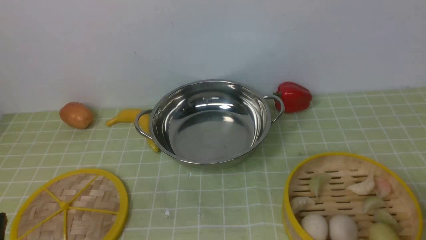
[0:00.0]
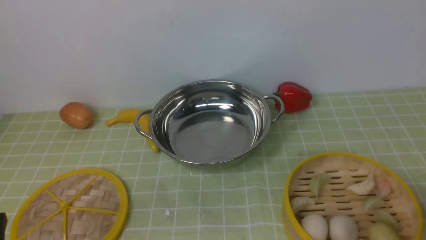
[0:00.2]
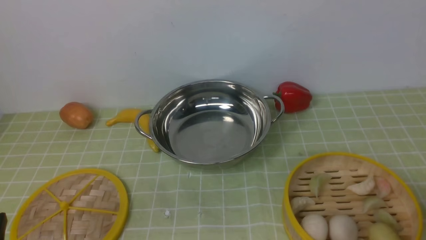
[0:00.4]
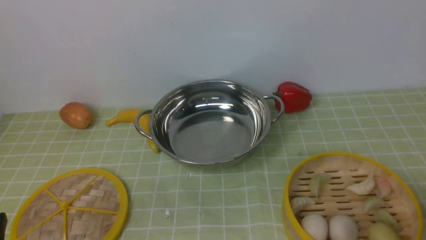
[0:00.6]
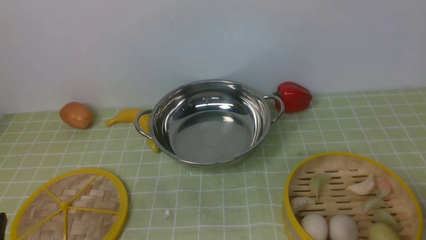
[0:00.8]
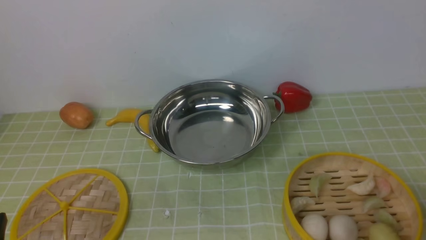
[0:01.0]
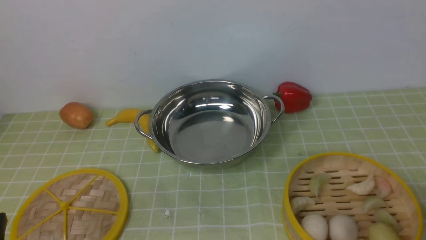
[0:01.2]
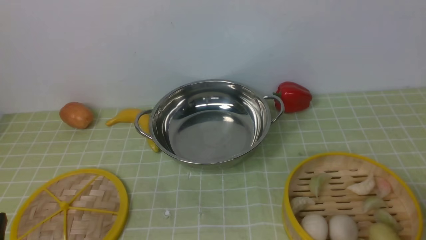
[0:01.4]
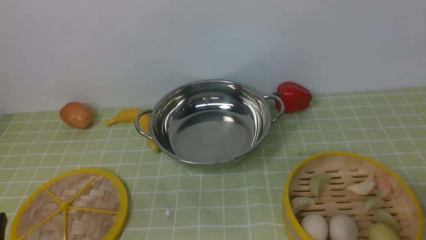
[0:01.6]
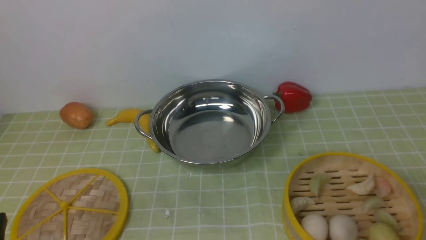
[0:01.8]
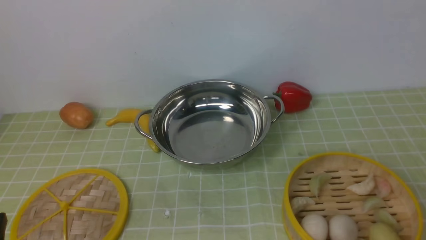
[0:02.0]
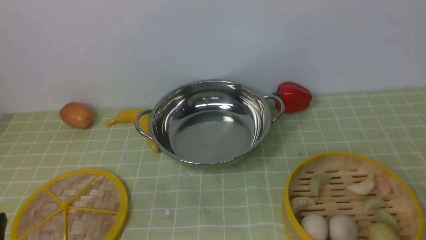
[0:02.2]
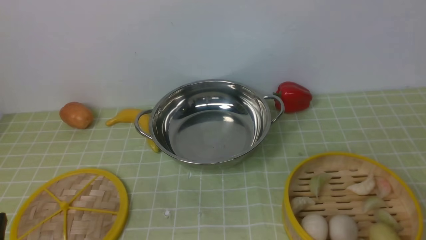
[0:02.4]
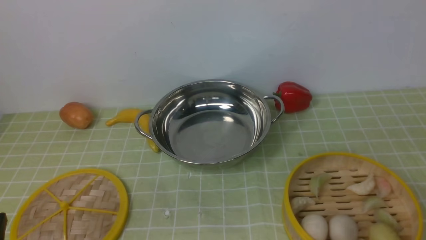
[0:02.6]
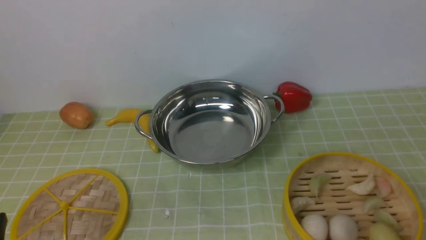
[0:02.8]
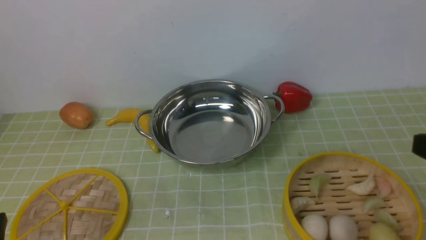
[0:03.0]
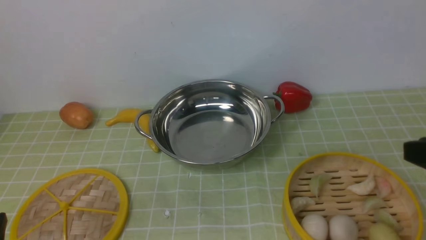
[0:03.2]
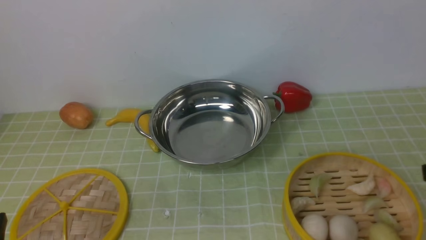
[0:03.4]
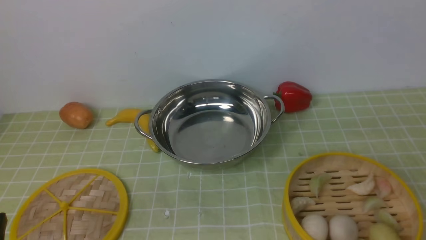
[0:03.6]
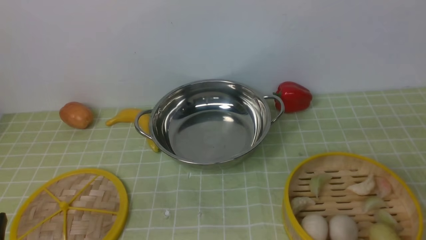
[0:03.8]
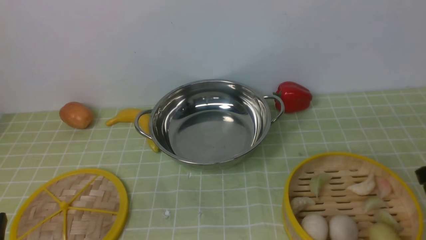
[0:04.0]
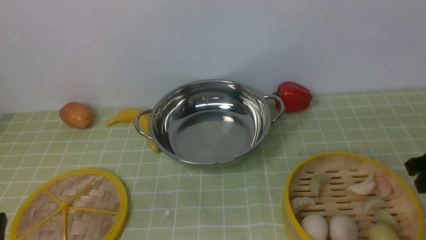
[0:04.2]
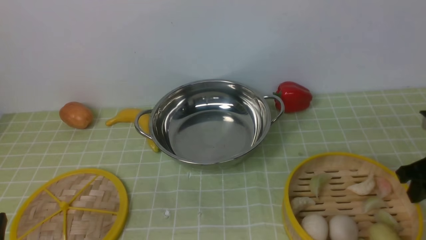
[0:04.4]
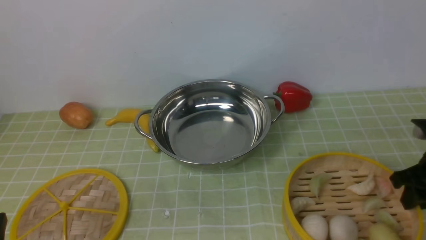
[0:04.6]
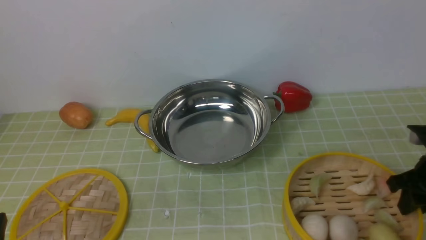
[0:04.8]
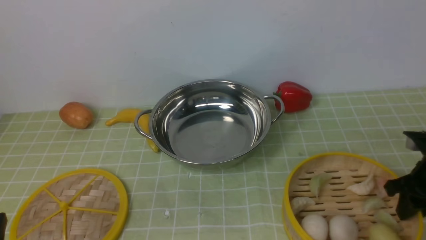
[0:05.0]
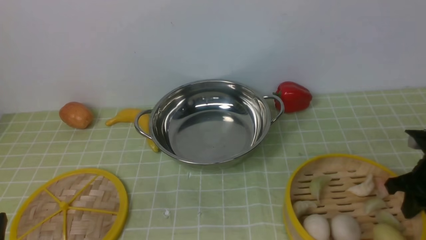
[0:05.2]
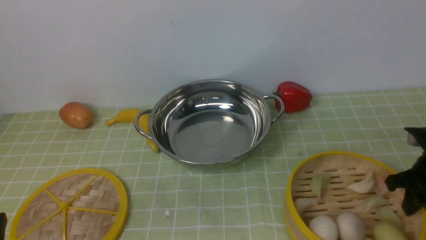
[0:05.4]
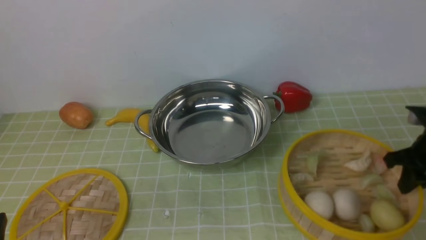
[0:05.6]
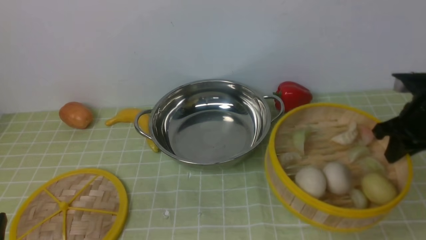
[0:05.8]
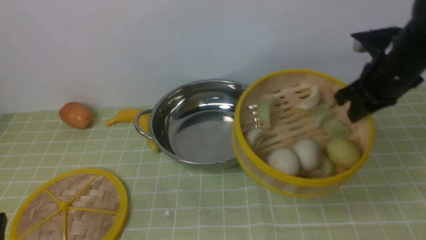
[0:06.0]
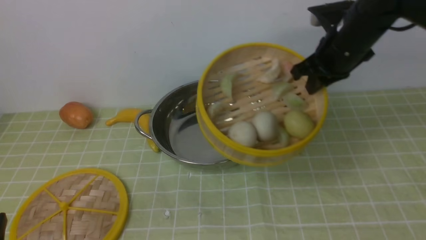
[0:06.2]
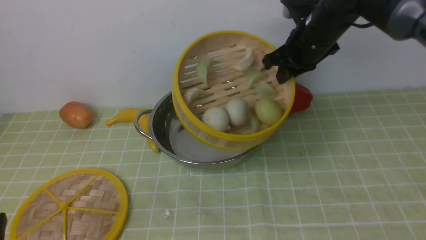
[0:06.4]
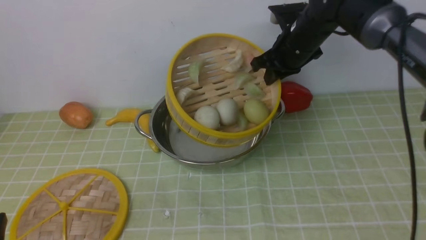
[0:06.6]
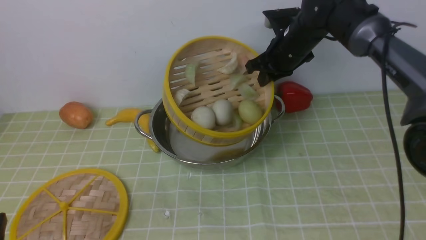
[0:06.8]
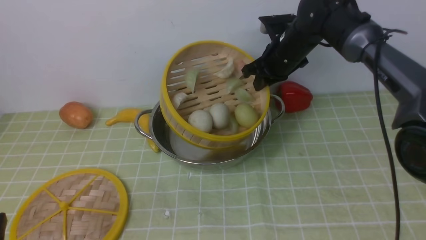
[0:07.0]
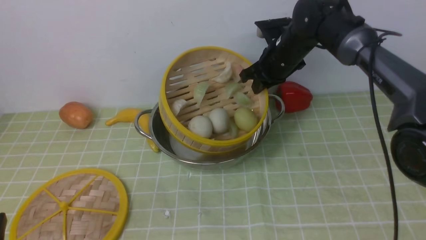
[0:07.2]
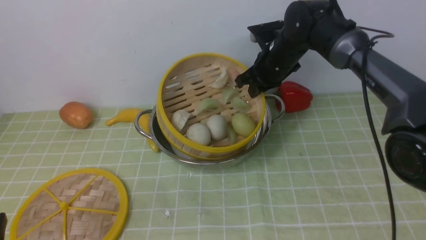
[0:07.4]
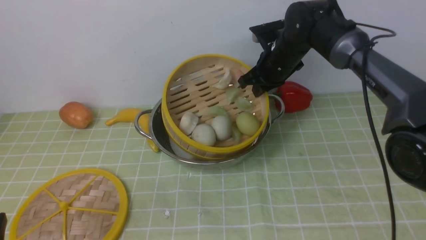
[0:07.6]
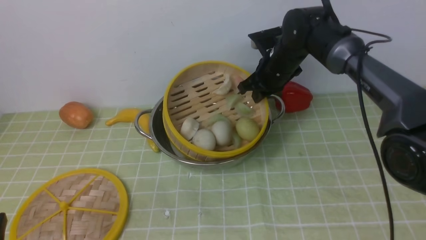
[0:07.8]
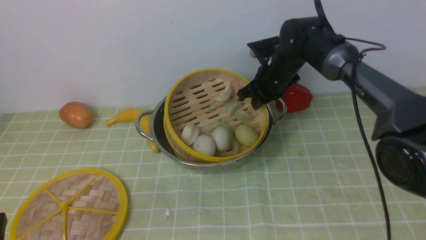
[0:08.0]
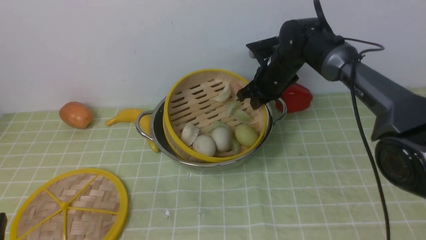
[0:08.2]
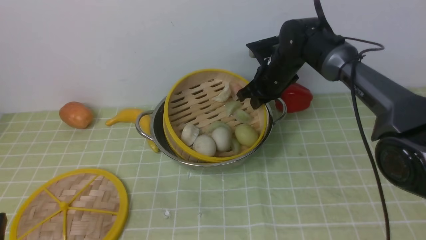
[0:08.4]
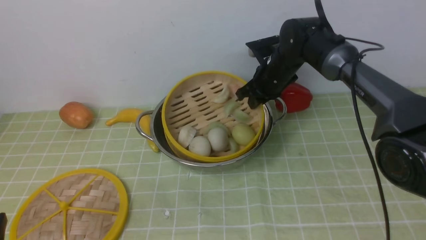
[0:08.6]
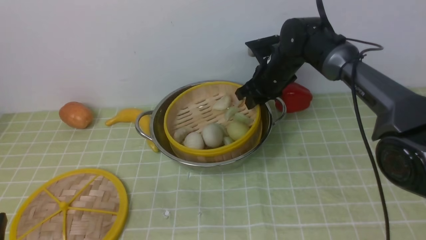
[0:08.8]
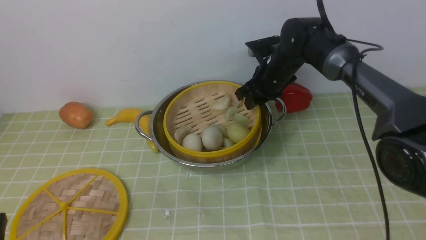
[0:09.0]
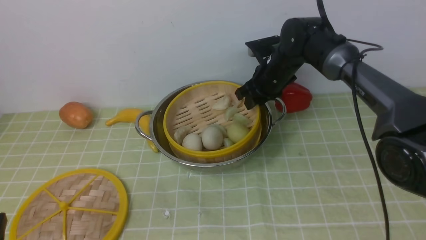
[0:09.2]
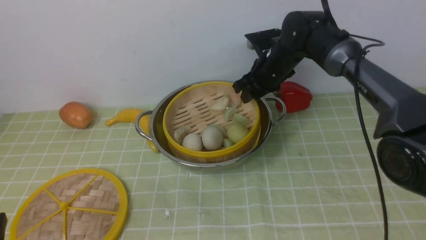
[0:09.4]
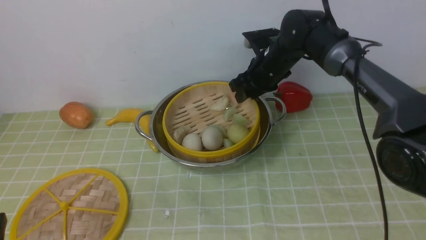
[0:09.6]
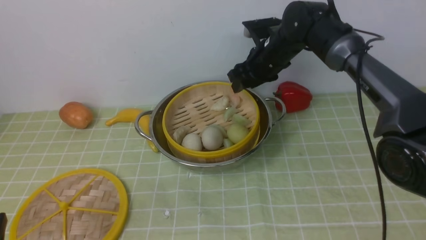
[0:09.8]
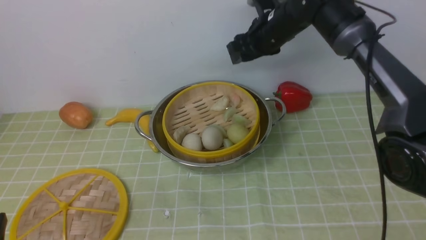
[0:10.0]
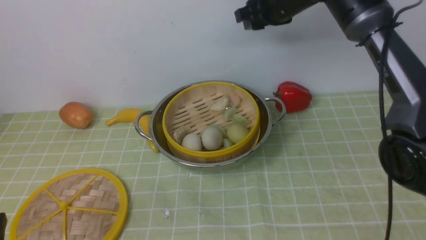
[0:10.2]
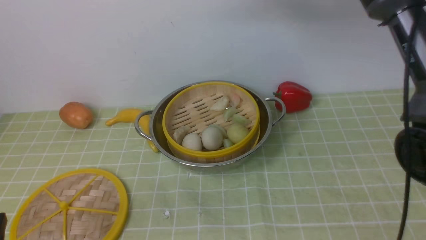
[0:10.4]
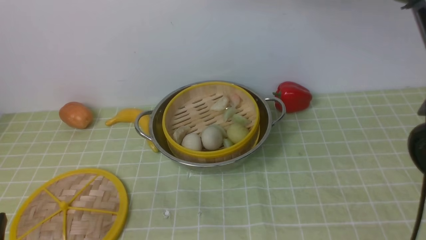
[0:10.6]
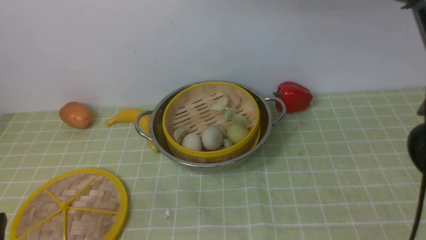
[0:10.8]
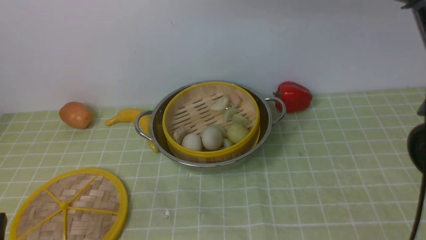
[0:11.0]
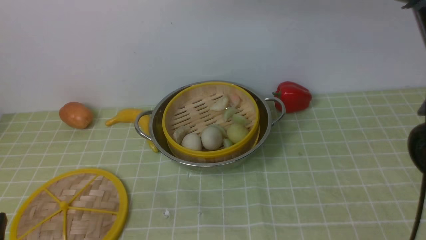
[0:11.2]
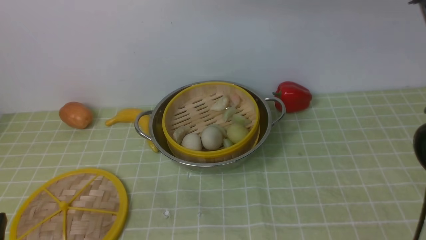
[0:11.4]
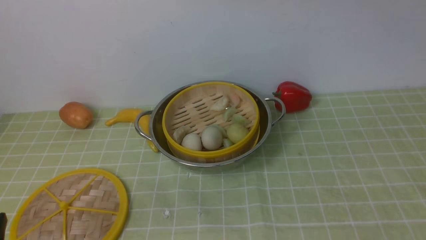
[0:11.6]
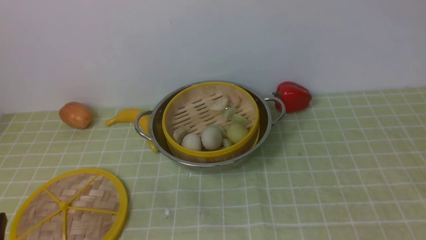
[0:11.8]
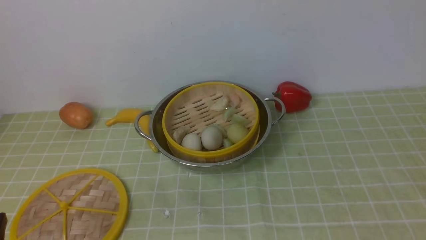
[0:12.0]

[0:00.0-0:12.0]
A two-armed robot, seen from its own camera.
Task of the whole recording: place the steamer in the pot on the green tablecloth, and put the lid on the steamer.
Step, 0:00.0 to 0:10.2: use the right arm to put the steamer into the iron steamer pot in the middle.
0:03.0 to 0:04.4: The right gripper travels forward and downward by approximately 20 cm.
0:04.4 to 0:06.0: The right gripper shifts roughly 15 cm forward, to the left and upward, and closes up.
0:06.0 to 0:07.6: The right gripper travels to the left, forward and downward by about 20 cm.
0:07.6 to 0:09.0: The right gripper opens up.
0:09.0 to 0:10.4: The right gripper goes about 20 cm upward, and closes its fingers.
0:10.4 to 0:12.0: The right gripper moves upward and backward, some 25 cm.

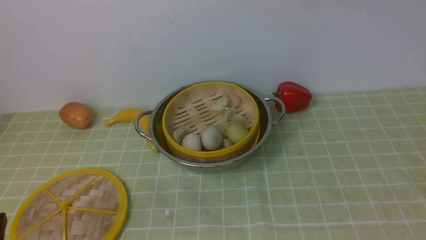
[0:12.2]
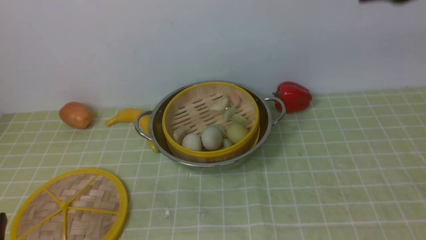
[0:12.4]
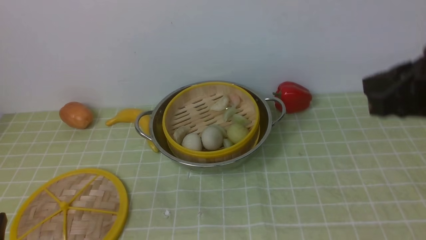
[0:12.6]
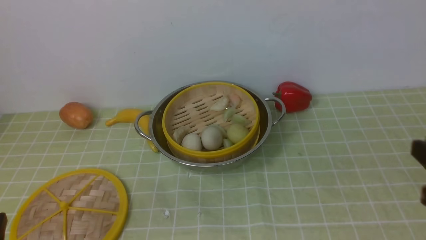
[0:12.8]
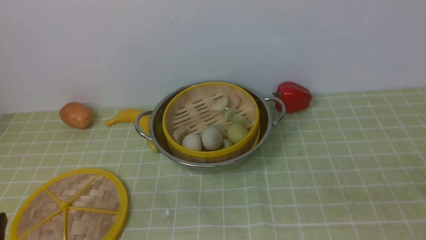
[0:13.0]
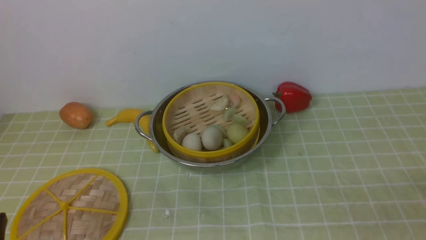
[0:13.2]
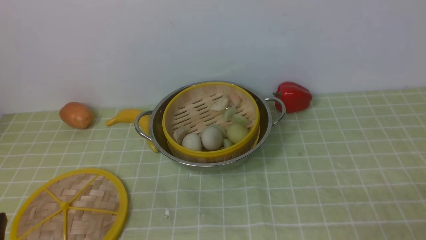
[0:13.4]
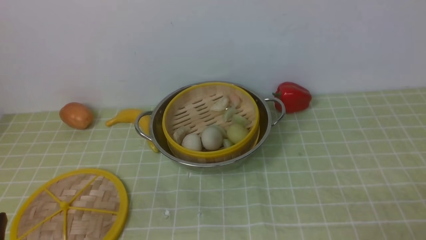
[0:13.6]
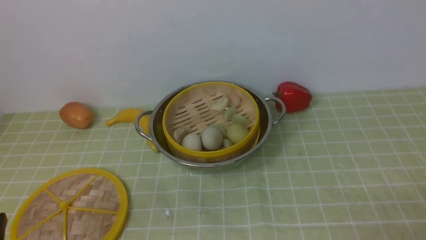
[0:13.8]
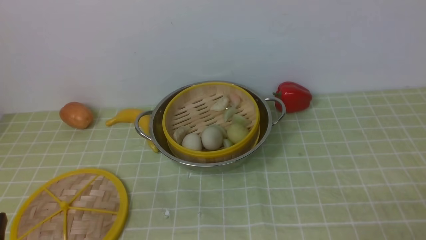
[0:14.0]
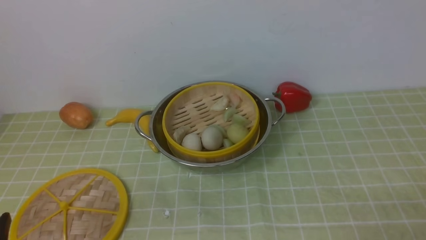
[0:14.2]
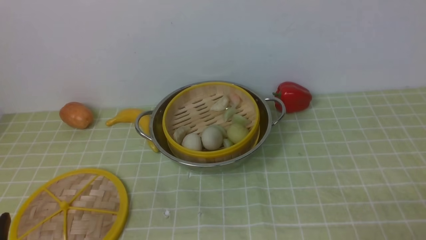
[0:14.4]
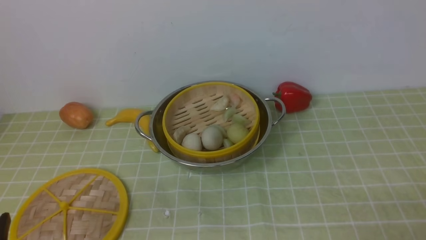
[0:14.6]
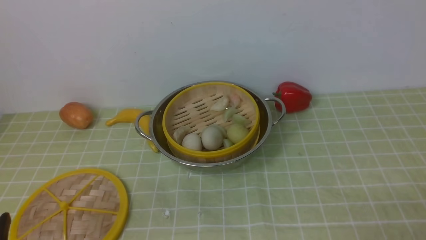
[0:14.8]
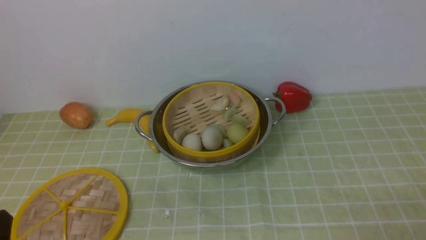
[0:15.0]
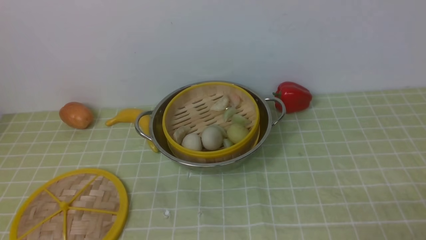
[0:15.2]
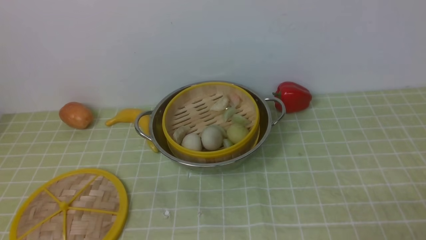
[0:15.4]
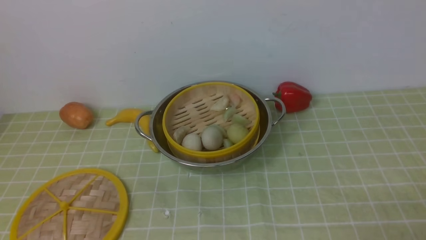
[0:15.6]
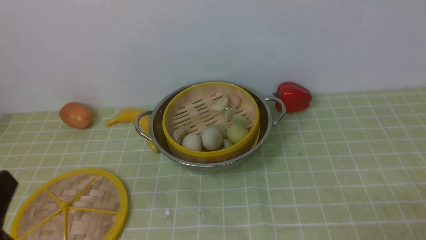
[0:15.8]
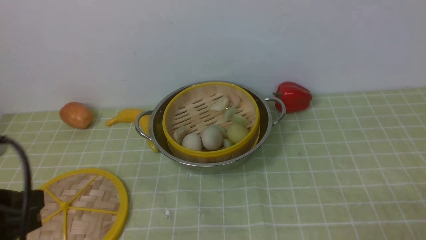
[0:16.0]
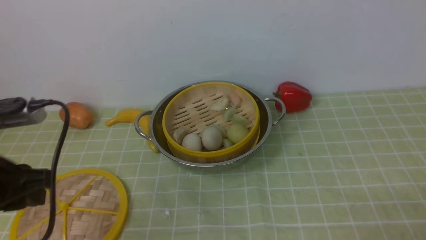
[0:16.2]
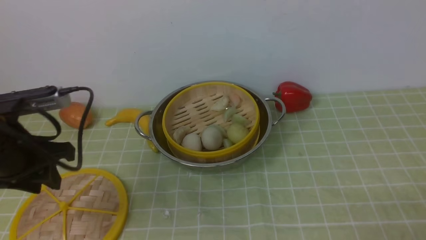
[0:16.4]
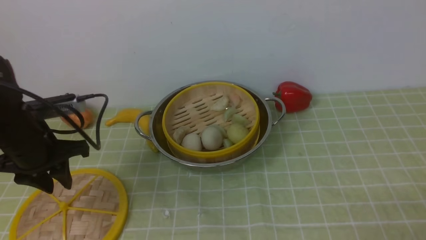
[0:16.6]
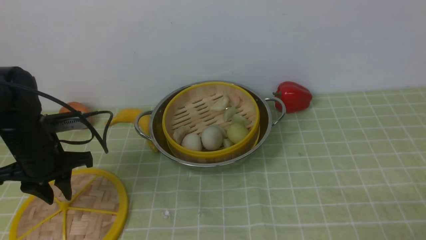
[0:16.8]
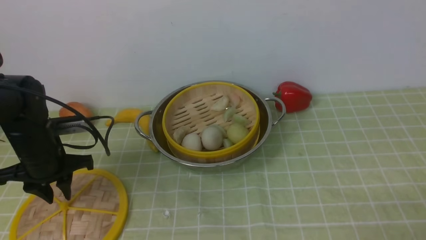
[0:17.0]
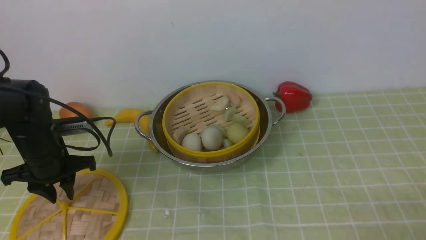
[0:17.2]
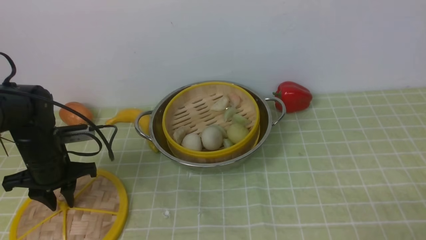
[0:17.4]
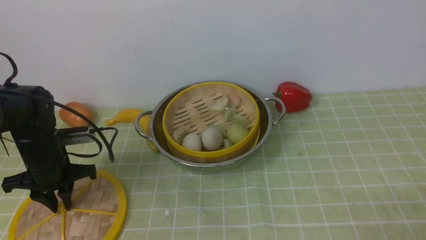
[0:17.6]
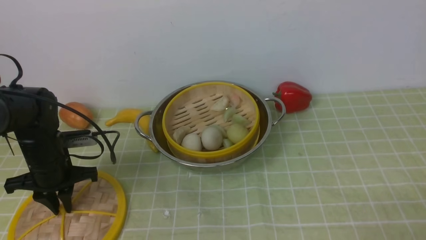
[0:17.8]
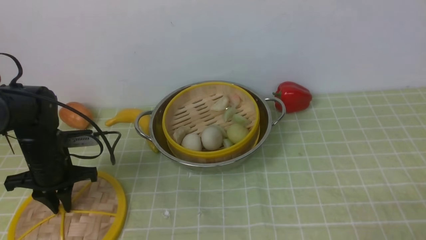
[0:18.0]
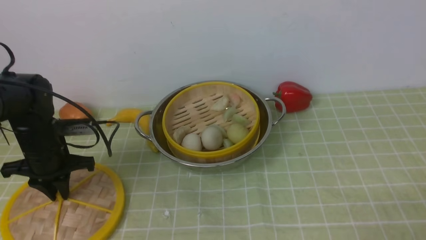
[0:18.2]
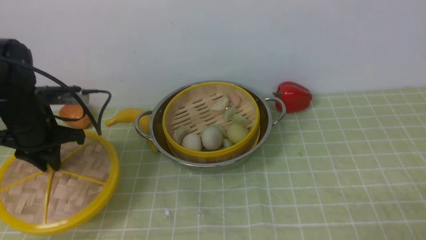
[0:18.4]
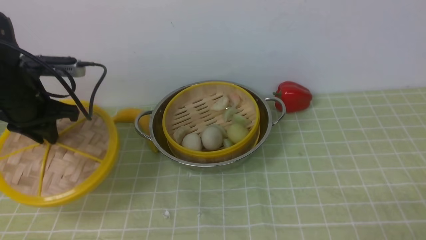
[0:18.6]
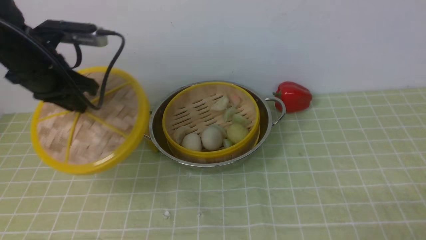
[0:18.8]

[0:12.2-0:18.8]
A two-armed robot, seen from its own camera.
Task of the whole recording: place the steamer in the pot on the green tablecloth, and put the lid on the steamer.
Step, 0:12.2 to 0:18.6: use the left arm to lift the lid of the steamer.
0:15.4 to 0:17.2: The left gripper goes roughly 30 cm forward.
0:17.2 to 0:18.8: The left gripper shifts some 15 cm upward, and closes.
